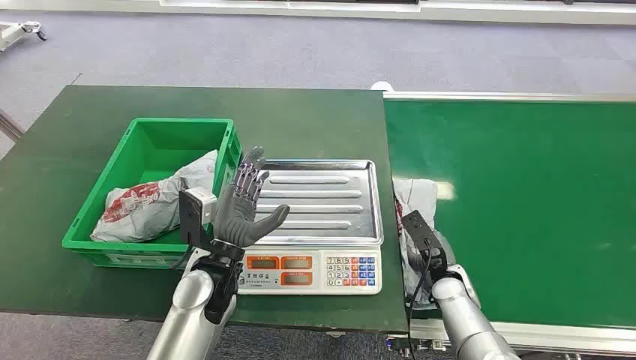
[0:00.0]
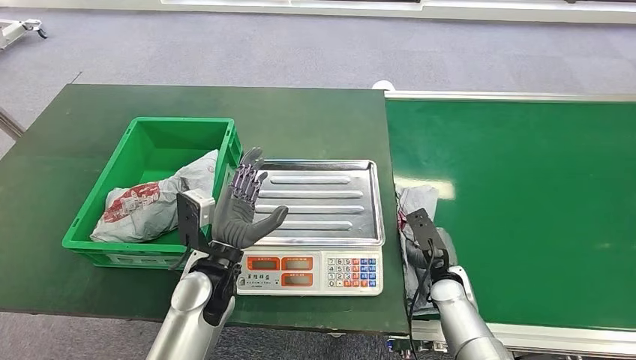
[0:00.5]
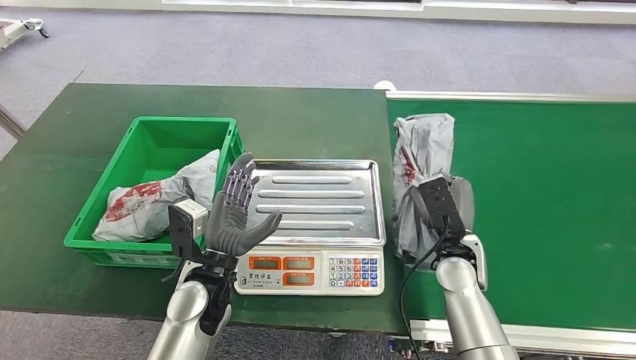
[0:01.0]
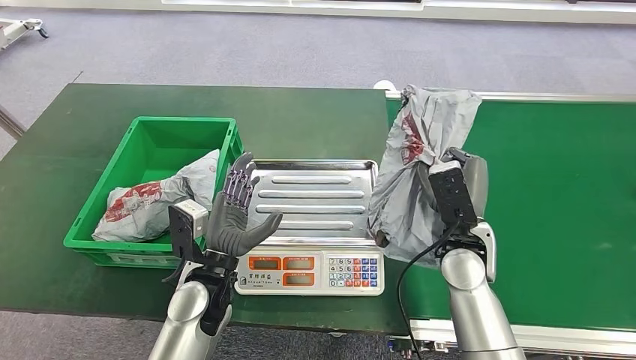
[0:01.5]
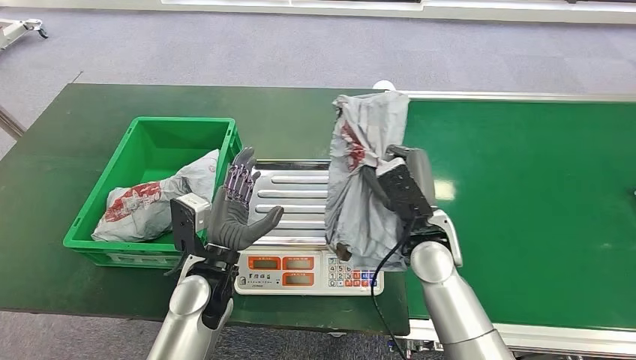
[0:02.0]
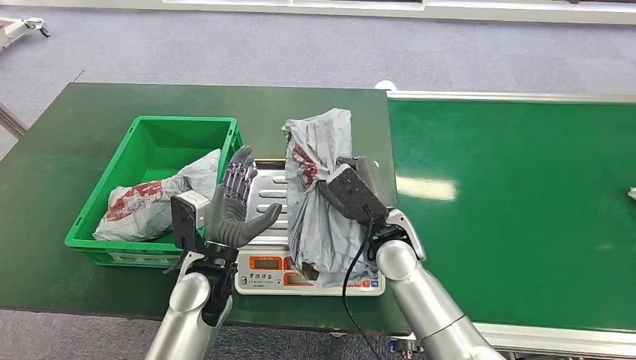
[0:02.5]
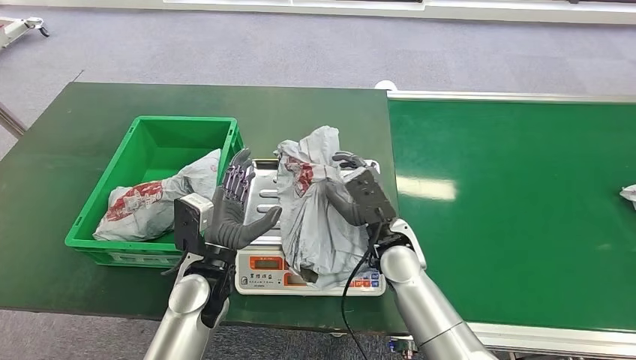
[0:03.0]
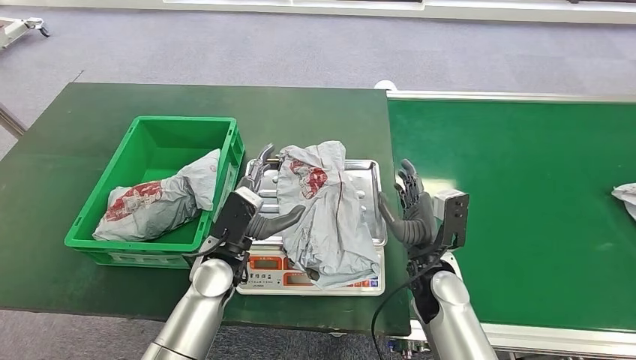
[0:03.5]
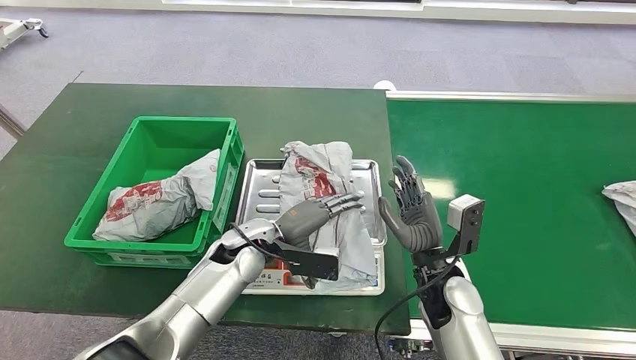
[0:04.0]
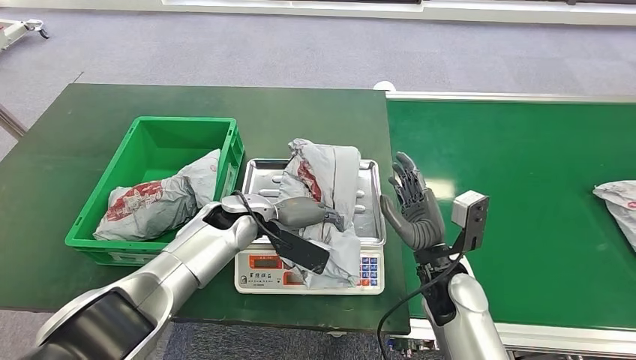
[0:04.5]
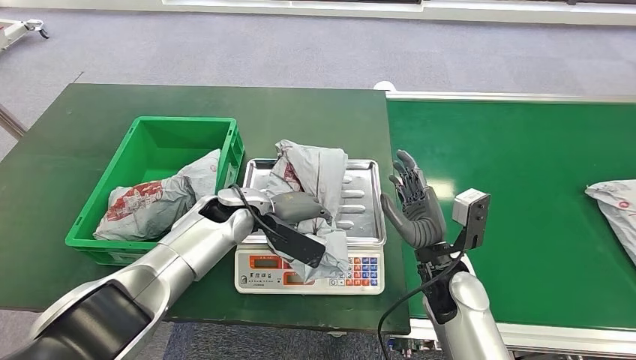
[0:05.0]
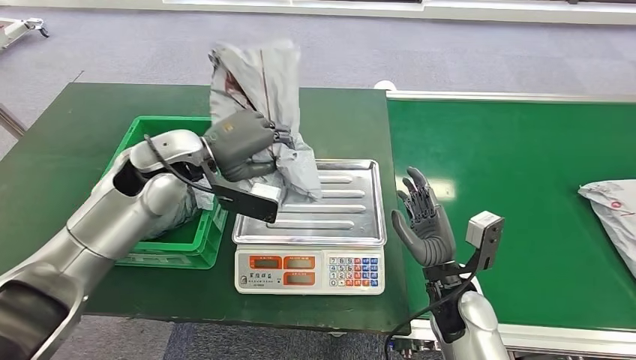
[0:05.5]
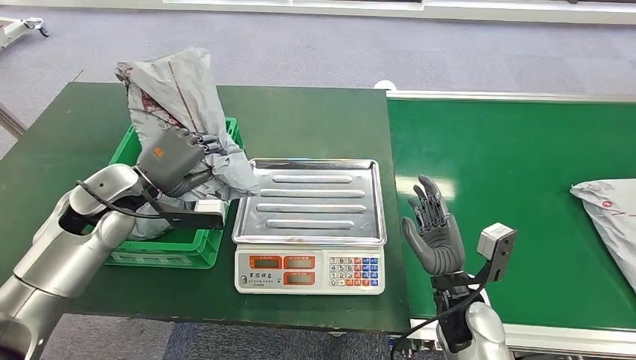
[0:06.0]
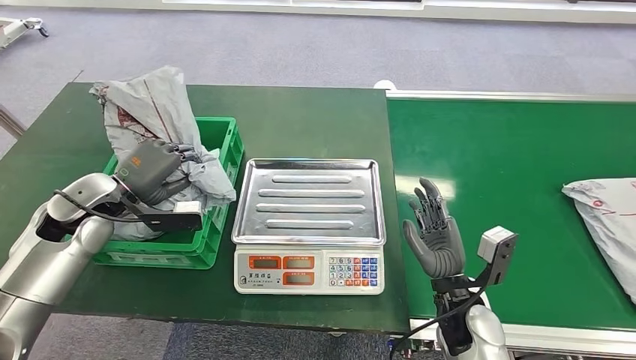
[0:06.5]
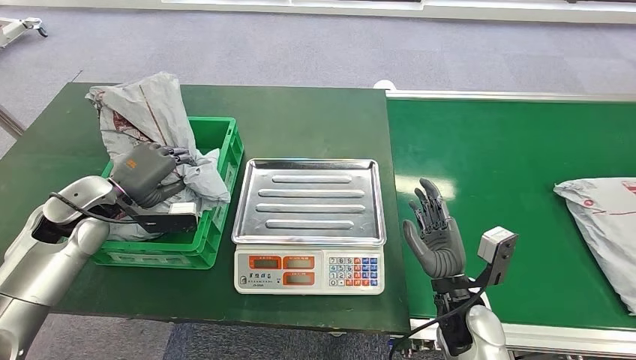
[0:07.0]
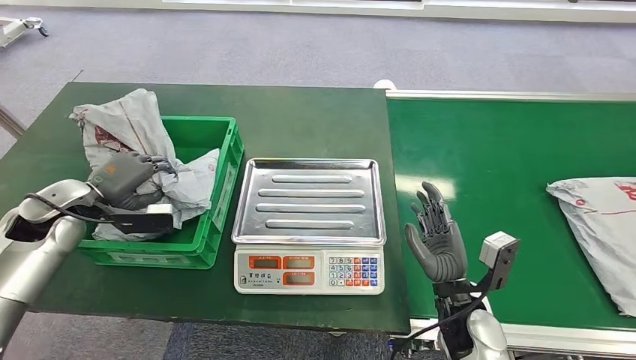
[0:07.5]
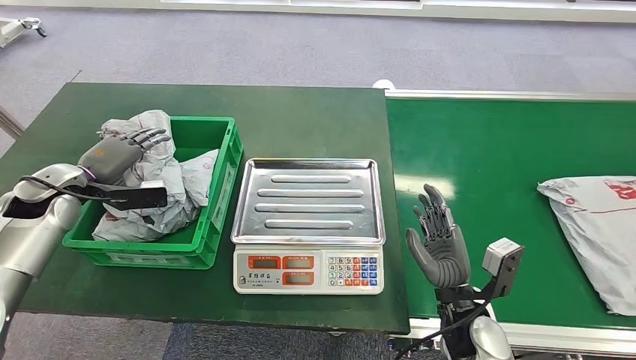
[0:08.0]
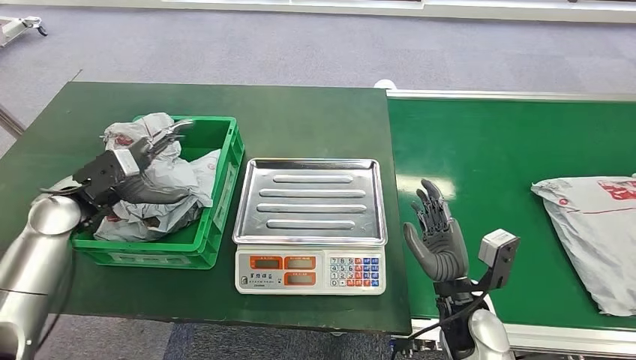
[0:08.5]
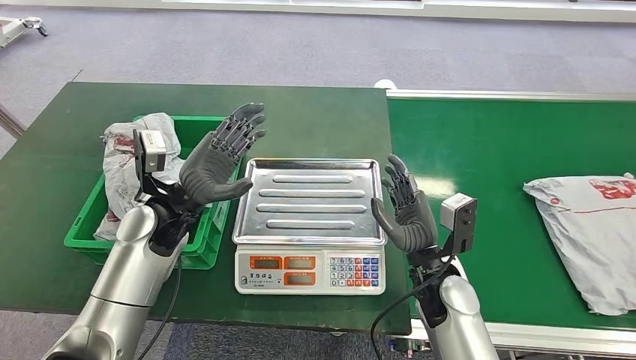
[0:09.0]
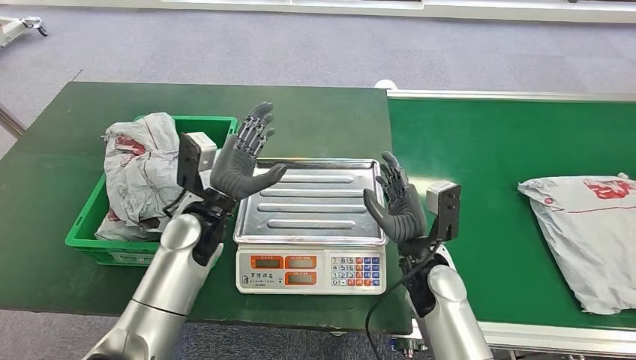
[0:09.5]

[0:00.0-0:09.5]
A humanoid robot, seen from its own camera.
Step, 0:00.0 to 0:02.5: Pick up the package from the conveyor belt.
Step, 0:03.0 to 0:03.5: Place the package onto the inbound machine.
Step, 0:04.0 to 0:06.5: Pick up the package from the inbound machine.
Step, 0:07.5 to 0:09.5: Place the package into the parcel locker.
0:02.0 to 0:04.0: The right hand heads downward, covering about 5 cm, and moves approximately 5 cm to the left and comes back. Meanwhile the left hand travels forward by about 5 cm.

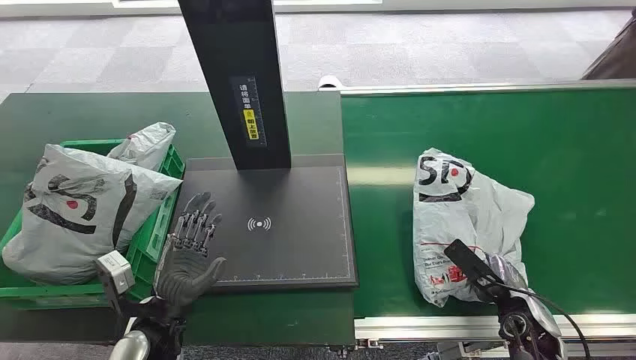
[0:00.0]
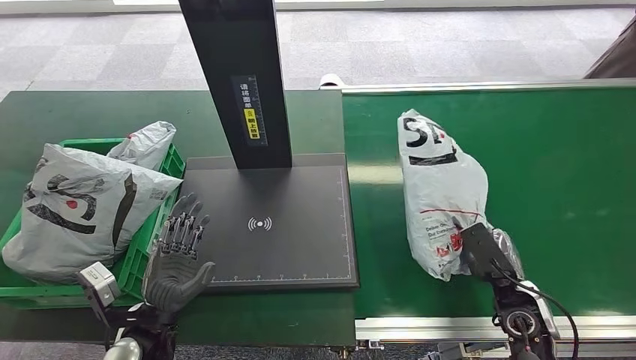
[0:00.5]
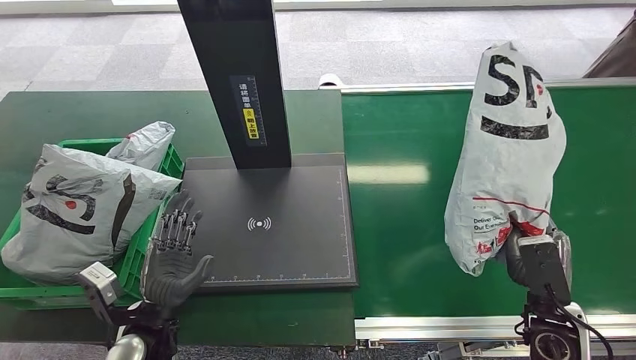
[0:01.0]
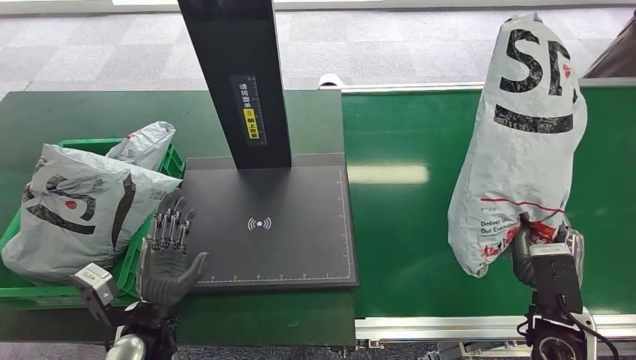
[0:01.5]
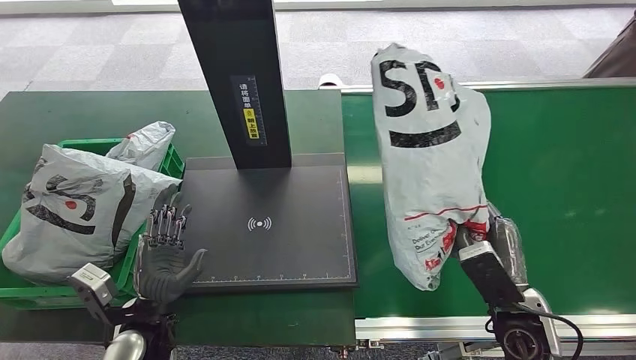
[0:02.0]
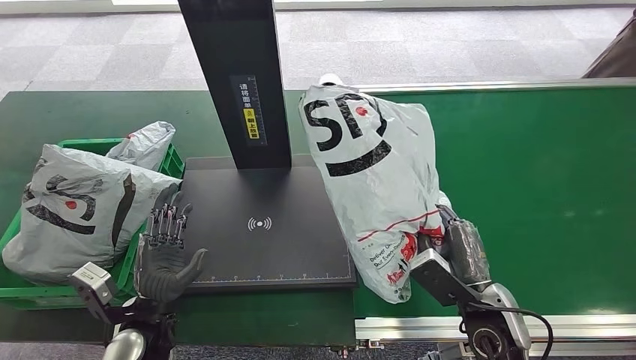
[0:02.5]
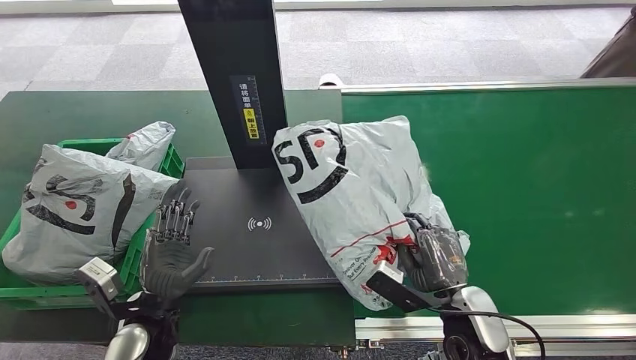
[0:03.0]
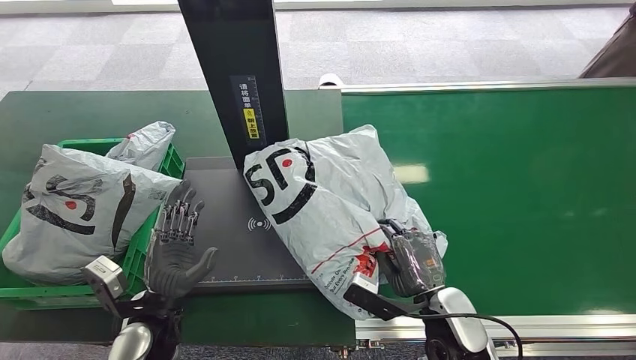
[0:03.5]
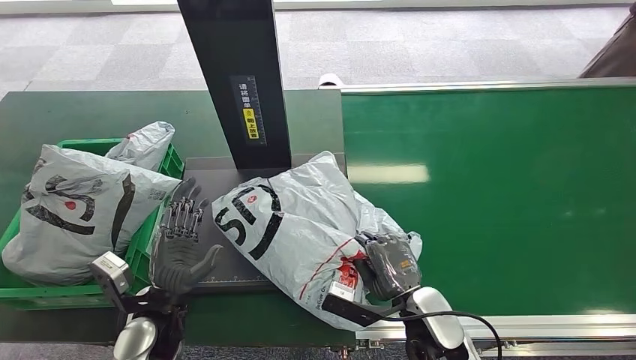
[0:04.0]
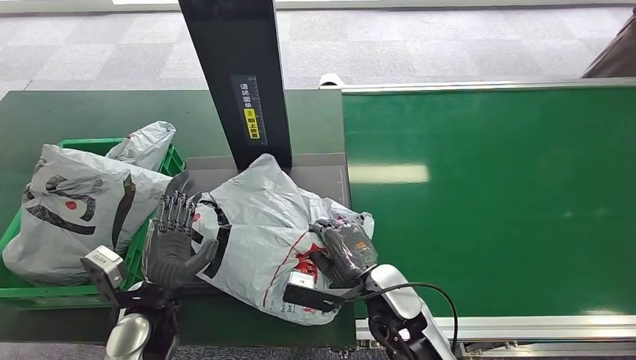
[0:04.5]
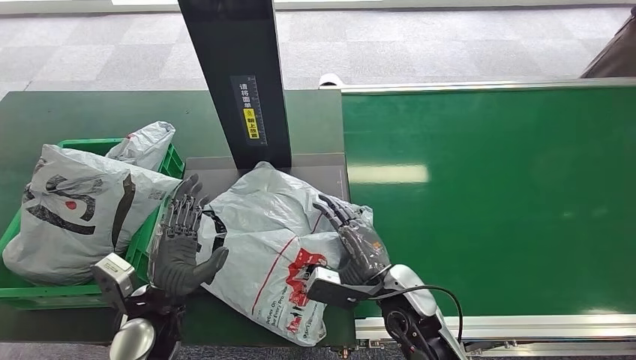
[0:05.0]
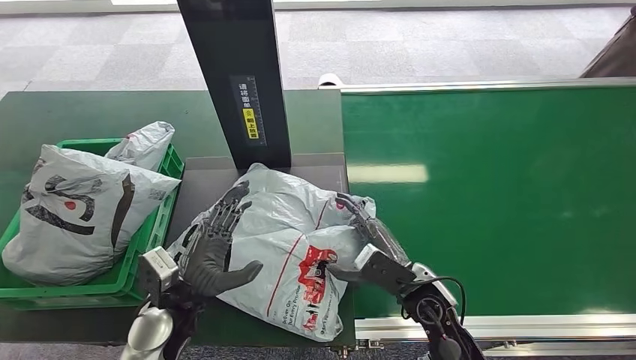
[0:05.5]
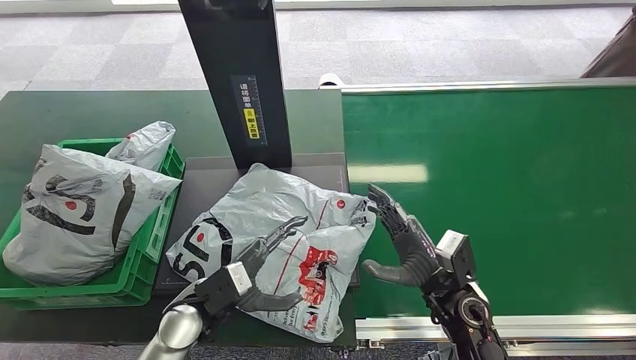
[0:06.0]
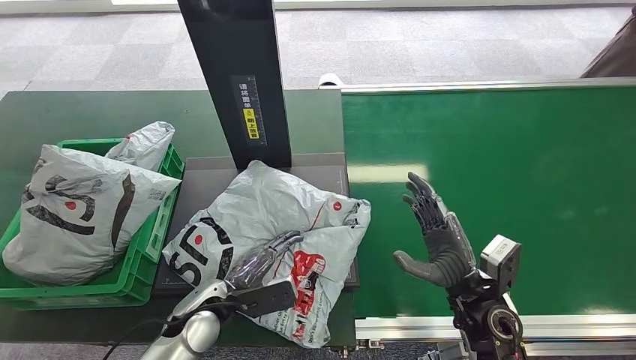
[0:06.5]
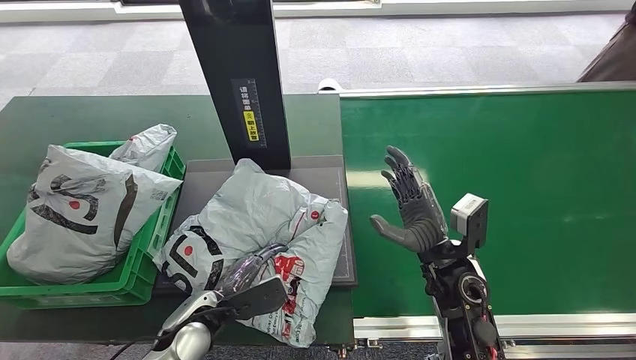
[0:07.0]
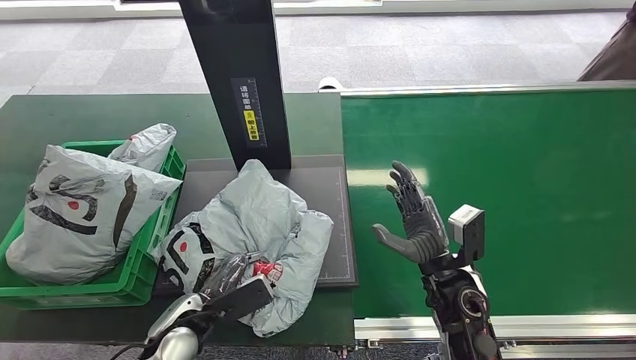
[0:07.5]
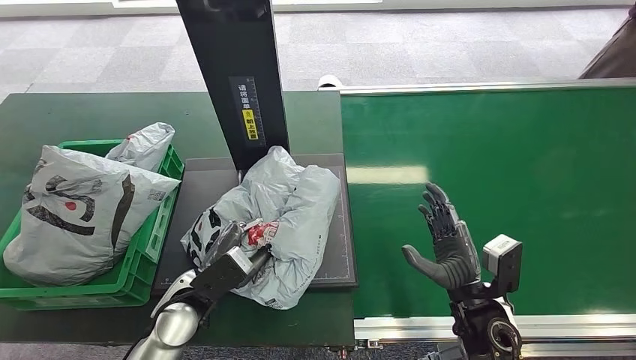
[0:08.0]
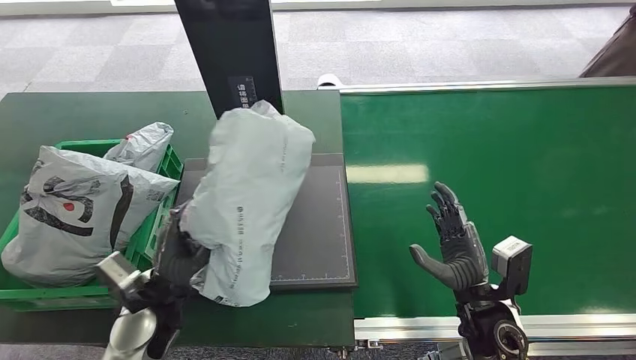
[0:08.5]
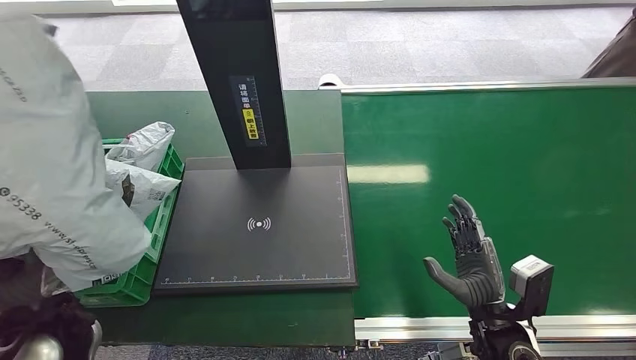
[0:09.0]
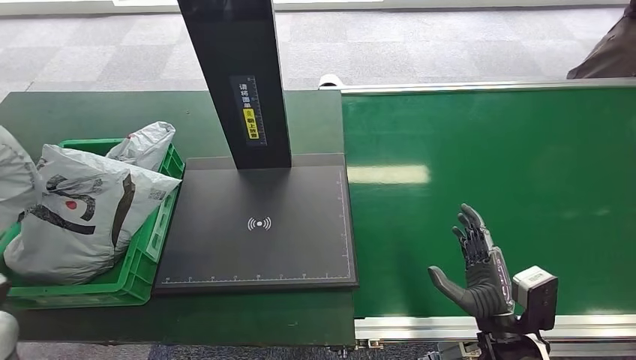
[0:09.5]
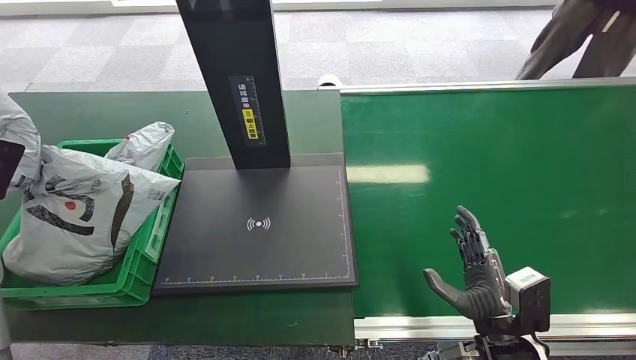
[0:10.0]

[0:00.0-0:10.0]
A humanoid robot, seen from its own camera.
Step, 0:00.0 to 0:02.5: Pick up the package from the conveyor belt.
Step, 0:03.0 to 0:06.0: Place the package onto the inbound machine.
Step, 0:06.5 to 0:08.5: Pick up the package from the inbound machine.
0:04.0 to 0:06.0: The right hand moves some 5 cm.
0:08.0 to 0:10.0: The right hand goes some 5 cm backward; the left hand shifts approximately 35 cm to the left and upward.
